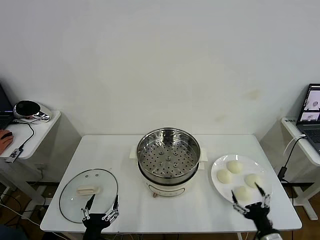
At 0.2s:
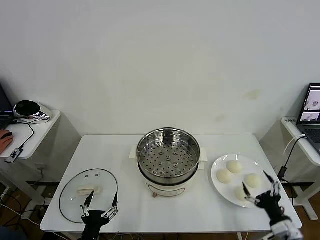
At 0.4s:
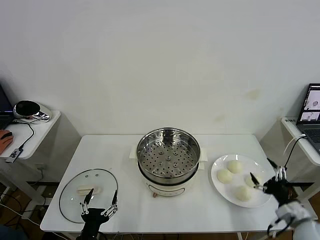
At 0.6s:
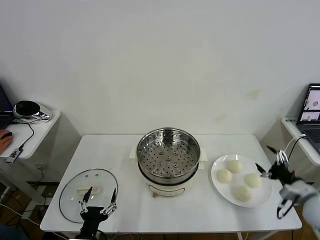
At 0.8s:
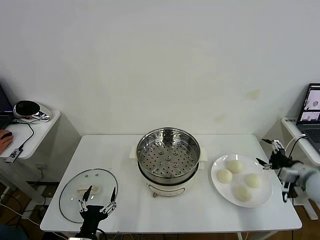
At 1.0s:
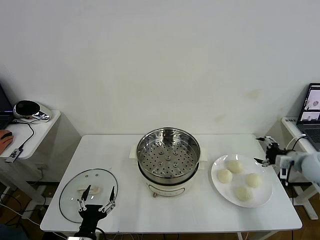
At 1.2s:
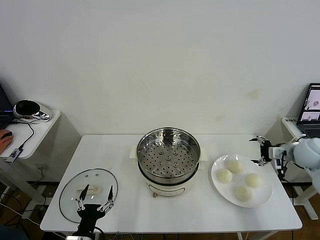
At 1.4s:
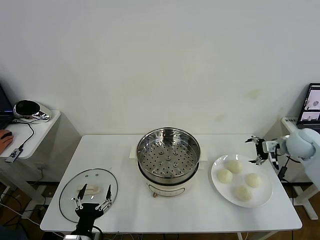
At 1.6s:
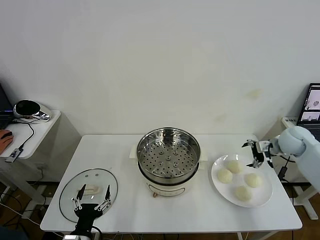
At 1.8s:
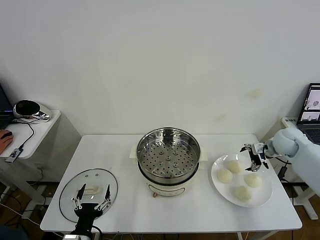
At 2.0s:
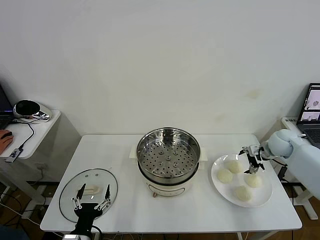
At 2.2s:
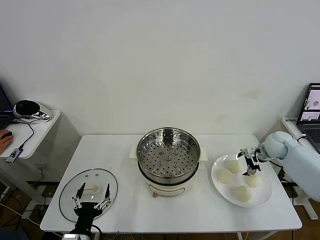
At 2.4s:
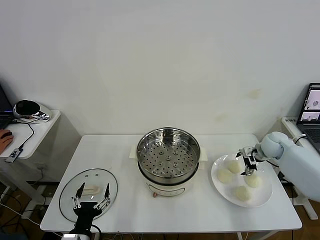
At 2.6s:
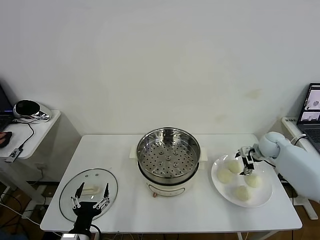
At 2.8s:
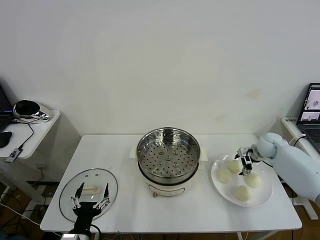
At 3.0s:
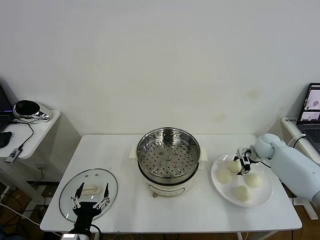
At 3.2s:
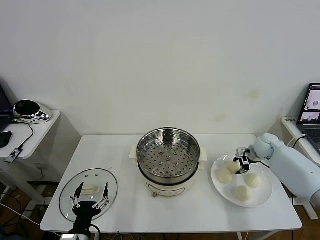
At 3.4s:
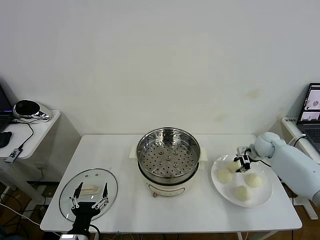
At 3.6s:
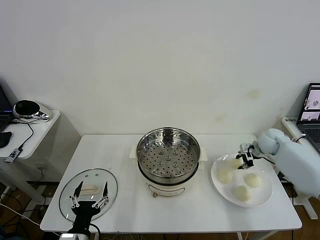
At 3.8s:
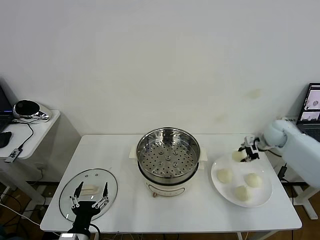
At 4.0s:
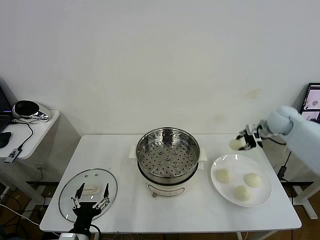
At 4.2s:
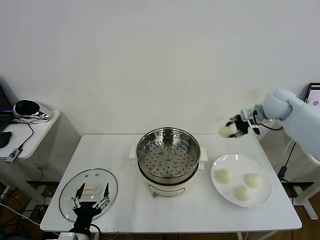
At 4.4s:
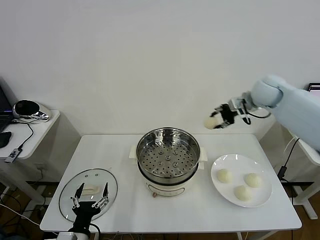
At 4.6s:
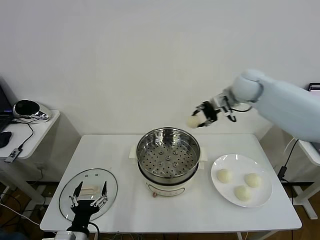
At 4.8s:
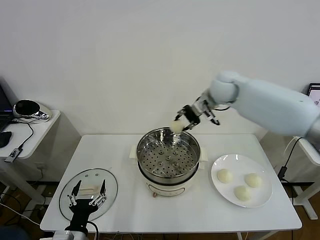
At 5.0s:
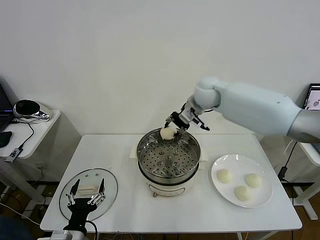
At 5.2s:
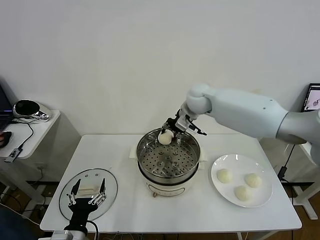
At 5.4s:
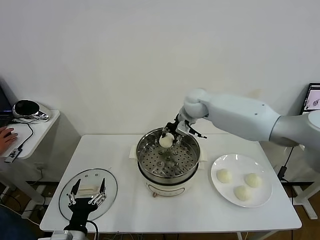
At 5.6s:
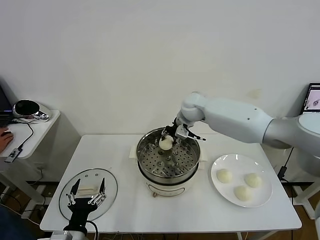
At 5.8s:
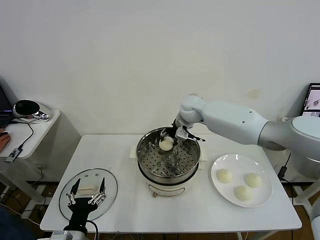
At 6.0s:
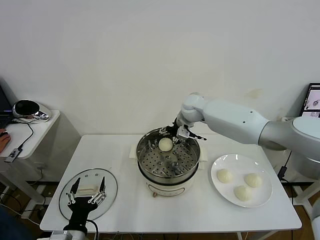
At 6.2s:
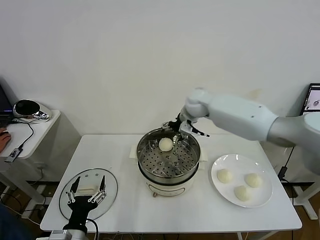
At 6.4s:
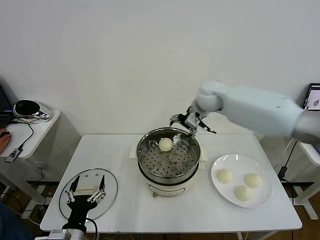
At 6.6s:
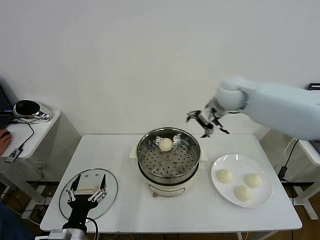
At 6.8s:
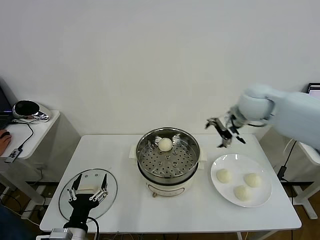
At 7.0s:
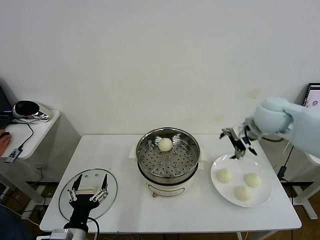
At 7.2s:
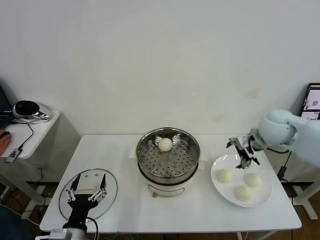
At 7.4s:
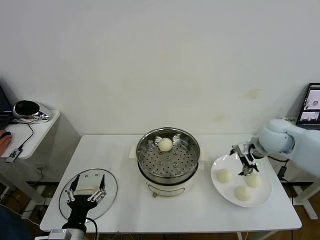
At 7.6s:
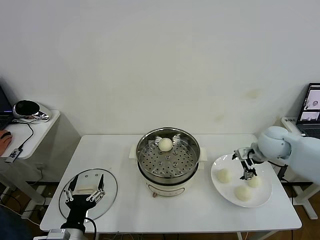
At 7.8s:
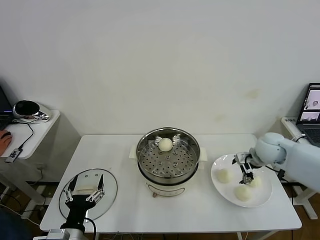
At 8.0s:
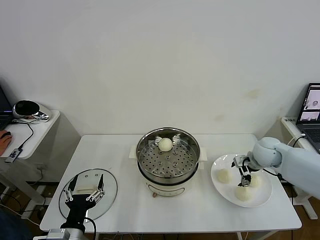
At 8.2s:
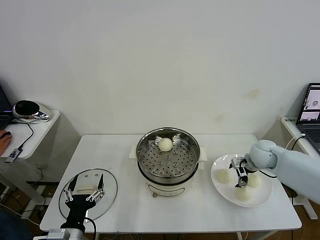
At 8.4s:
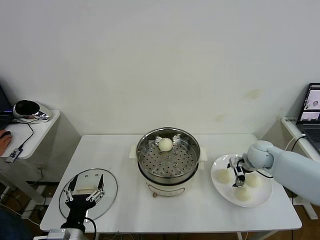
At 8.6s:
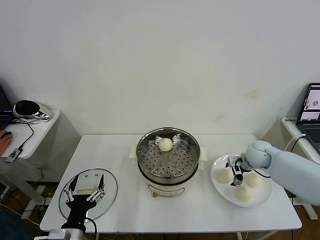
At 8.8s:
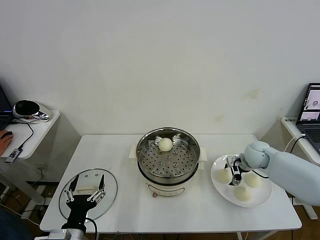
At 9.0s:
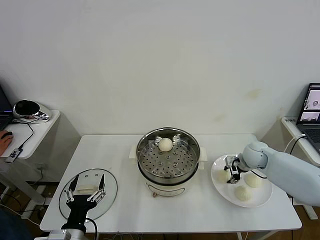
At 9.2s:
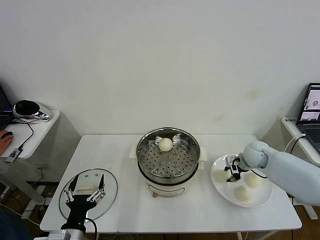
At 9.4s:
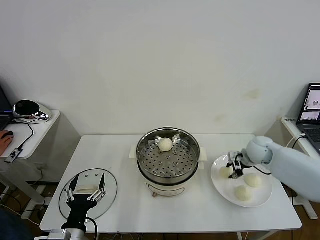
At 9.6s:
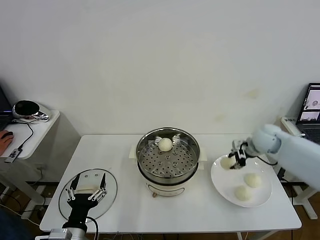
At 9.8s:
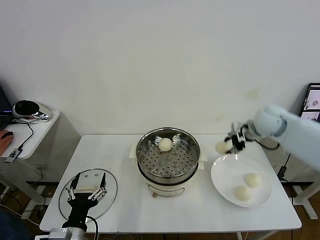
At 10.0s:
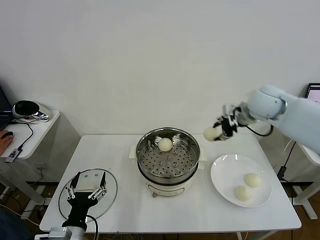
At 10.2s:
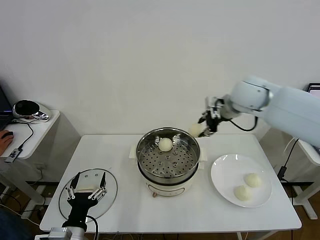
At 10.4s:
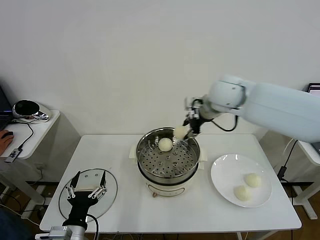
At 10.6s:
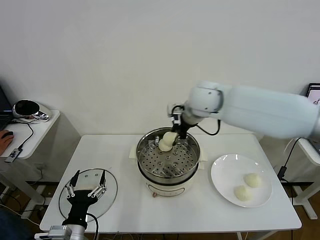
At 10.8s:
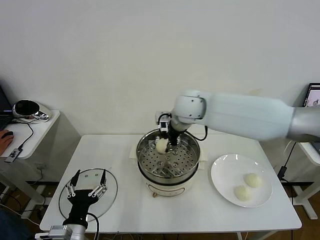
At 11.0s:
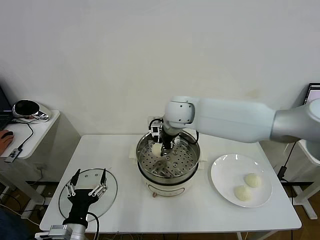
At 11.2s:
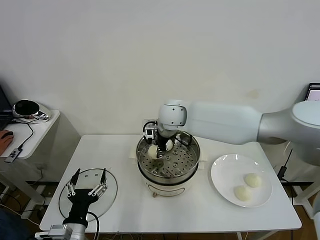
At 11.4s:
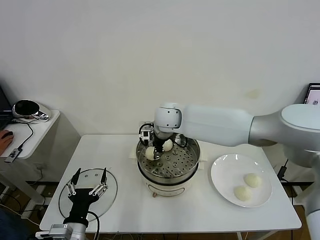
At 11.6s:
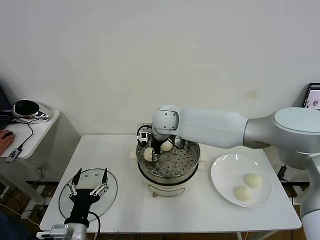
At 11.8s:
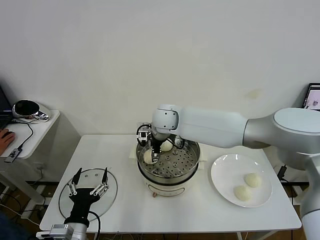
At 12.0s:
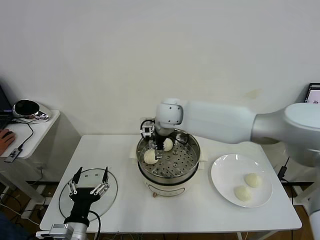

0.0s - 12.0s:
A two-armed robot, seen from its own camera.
Task of the whole recording: take steamed baozi put them in steamer then cover it.
Step, 0.0s - 3.2s: Grasp the baozi in the plate with right gripper.
Step, 3.4s - 5.8s: Place the baozi on the steamer with right gripper.
Step, 6.0s - 9.2s: Grasp the baozi in the plate with right gripper.
Step, 9.4s - 11.8s: Place the baozi on the steamer with right gripper.
1.6s - 3.0s: The right gripper moves downward, about 10 cm, and closes.
3.0s - 4.4s: The right gripper heads upward and to the left, covering about 30 cm, and closes up.
4.4s - 6.0s: The right gripper travels to the left and downward by approximately 20 cm, and opens.
6.0s - 7.6s: The right gripper goes about 30 cm to the right and backward.
7.6s - 9.0s: The right gripper travels downward by some 10 cm, and closes.
9.0s - 10.4s: The right gripper shifts about 30 cm upward and to the left.
10.4s - 12.0s: The right gripper heads to the left and downward, covering approximately 15 cm, and opens.

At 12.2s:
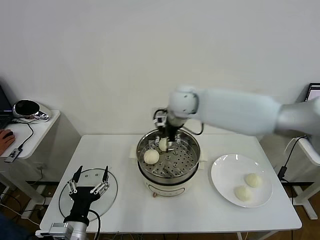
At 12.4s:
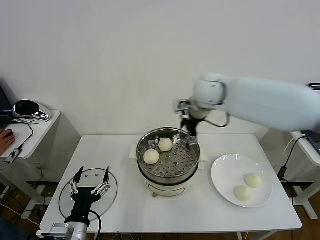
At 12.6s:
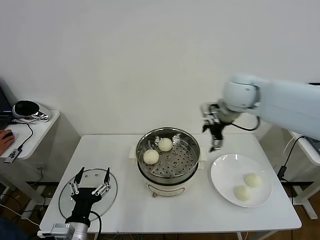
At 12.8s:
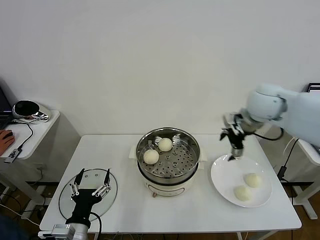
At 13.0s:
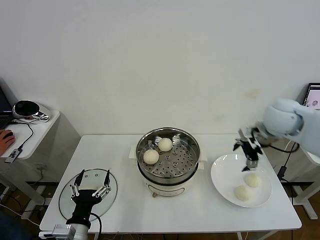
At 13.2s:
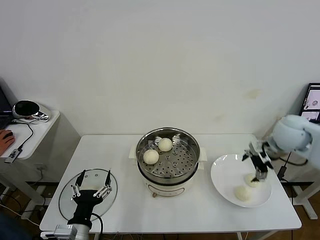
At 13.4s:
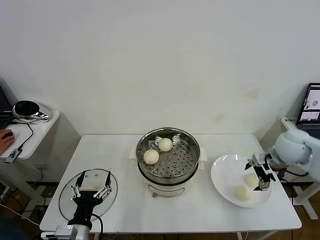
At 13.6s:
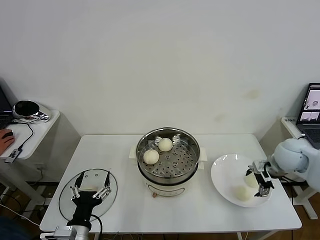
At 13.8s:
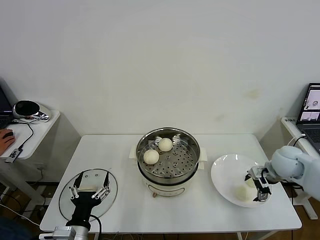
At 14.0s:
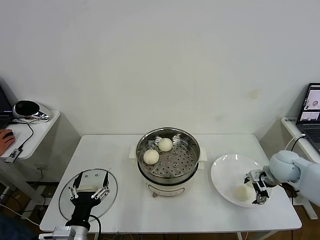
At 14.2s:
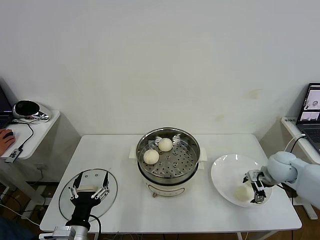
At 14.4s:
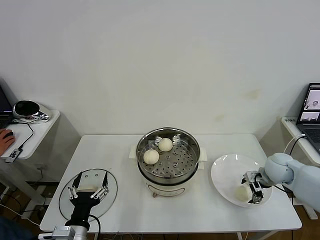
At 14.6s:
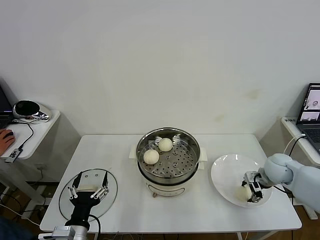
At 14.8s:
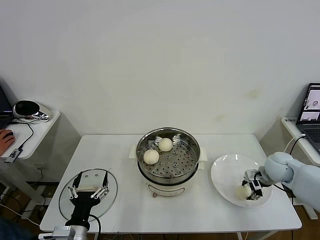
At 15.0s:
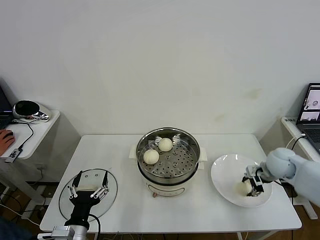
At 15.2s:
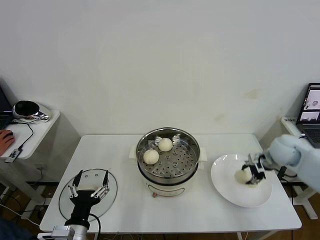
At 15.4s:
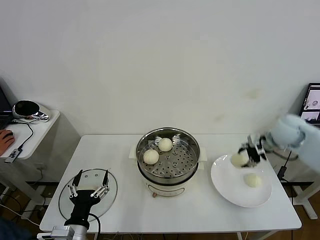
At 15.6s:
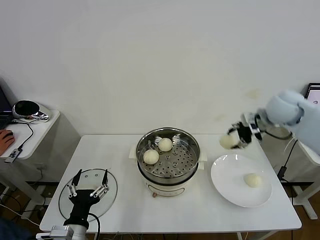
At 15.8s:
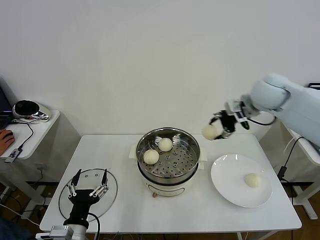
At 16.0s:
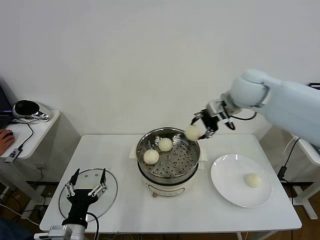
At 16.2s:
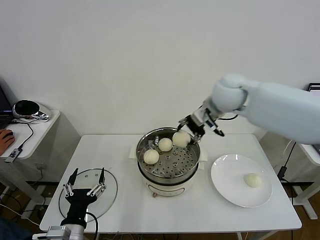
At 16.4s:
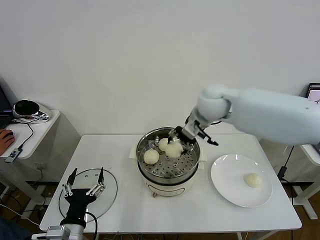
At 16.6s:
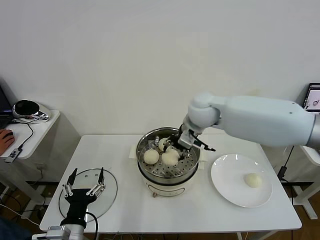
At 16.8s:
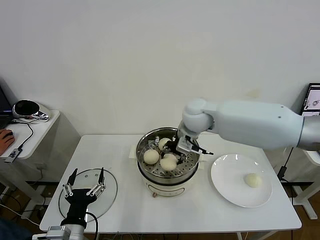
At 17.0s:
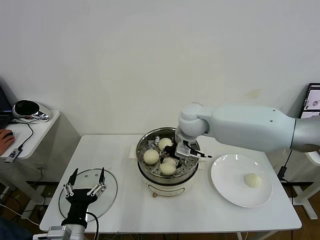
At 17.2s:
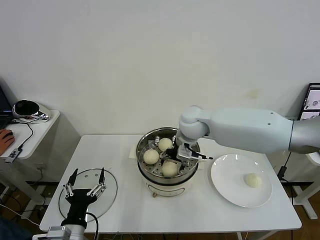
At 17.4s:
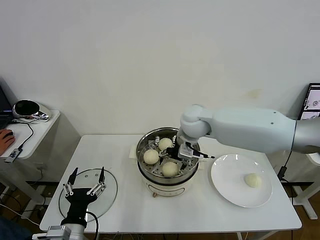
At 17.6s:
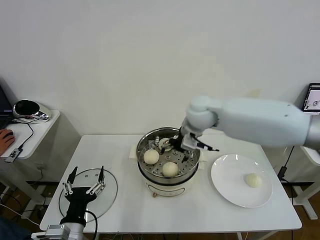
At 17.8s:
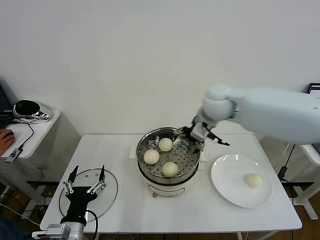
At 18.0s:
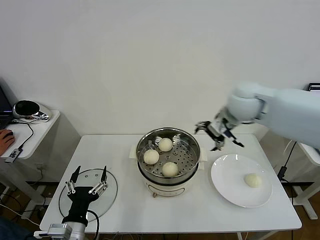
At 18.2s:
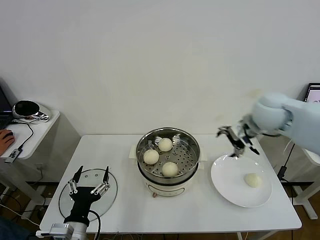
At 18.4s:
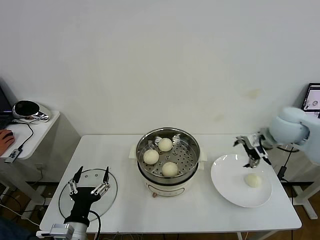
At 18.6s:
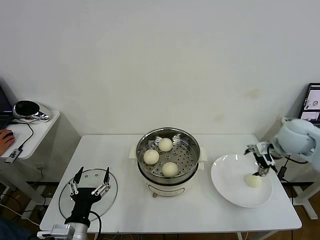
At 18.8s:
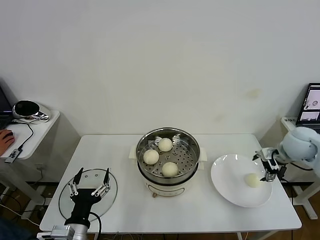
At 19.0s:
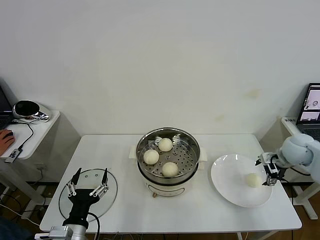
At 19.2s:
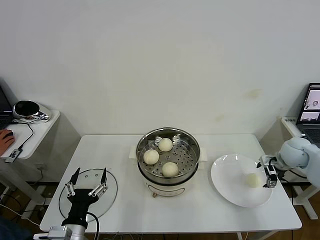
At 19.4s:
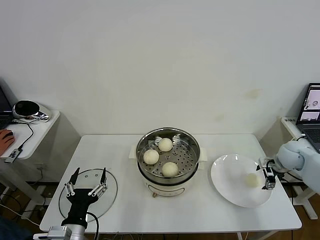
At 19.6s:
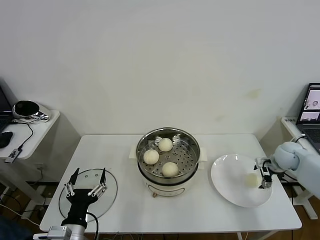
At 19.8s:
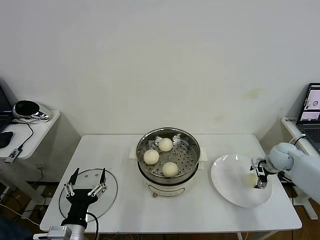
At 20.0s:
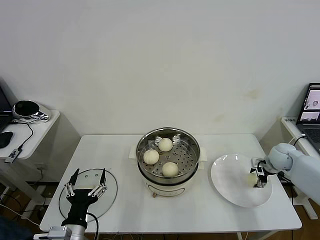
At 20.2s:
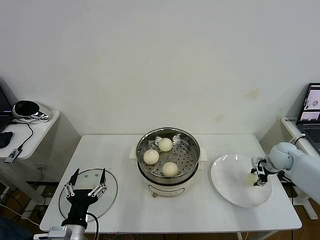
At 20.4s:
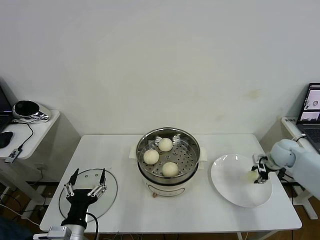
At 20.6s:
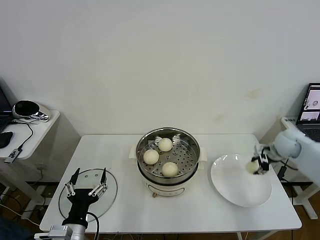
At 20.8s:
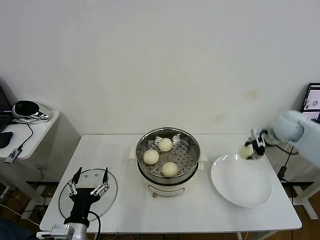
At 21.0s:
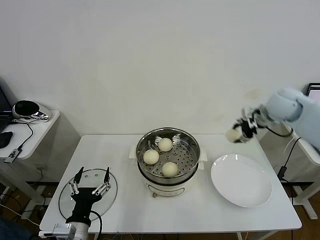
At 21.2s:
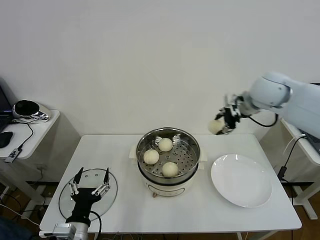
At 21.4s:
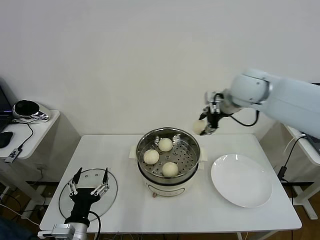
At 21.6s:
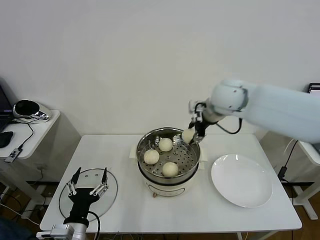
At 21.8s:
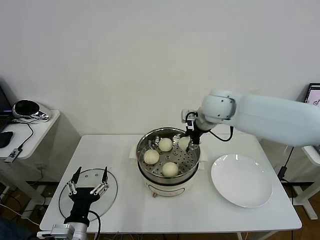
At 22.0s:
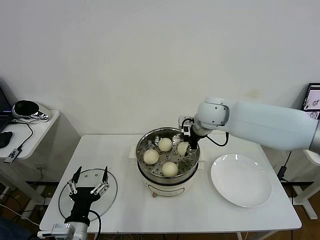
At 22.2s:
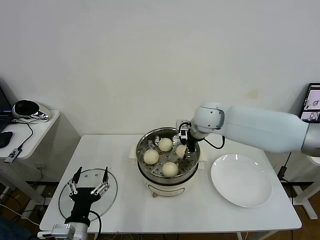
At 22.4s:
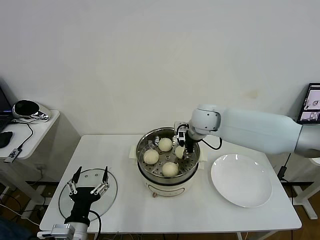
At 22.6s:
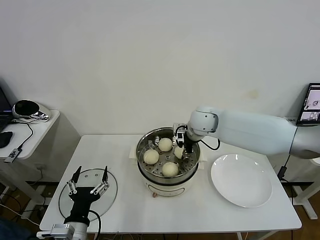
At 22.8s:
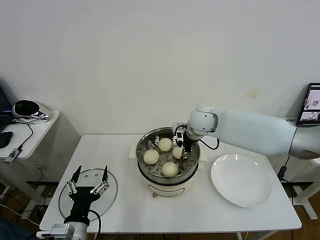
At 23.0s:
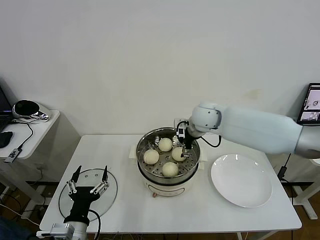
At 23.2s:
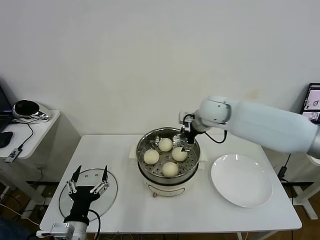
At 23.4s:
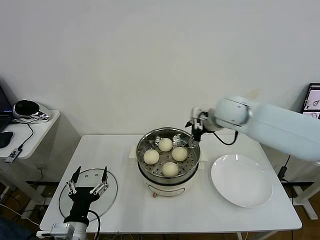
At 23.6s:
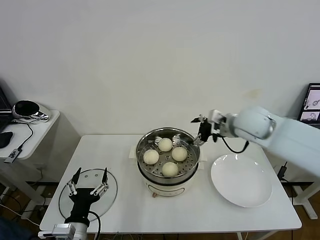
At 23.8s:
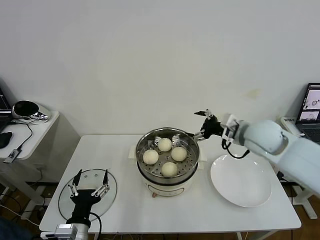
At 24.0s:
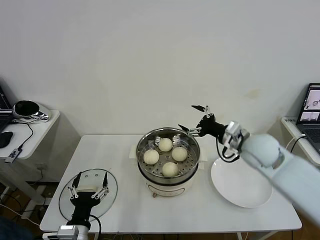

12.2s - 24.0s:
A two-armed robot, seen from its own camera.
Task of the whole recording: take steamed baozi put them in steamer then cover it.
Step, 12.2s - 14.6s: Grasp the baozi in the plate with right gripper.
Step, 14.8s - 17.2s: Place the baozi on the steamer with right gripper.
Step, 17.6s - 20.2s: Grasp the baozi in the plate with right gripper.
Step, 20.4s - 23.0s: Place the baozi on the steamer with right gripper.
12.2s - 13.6s: The right gripper is displaced to the right and downward by about 35 cm.
13.6s - 15.2s: The right gripper reaches approximately 5 cm downward, then returns, and closes.
15.2s - 16.6s: The right gripper shifts some 30 cm to the left.
16.6s - 18.2s: The right gripper shifts approximately 20 cm to the right, and opens its fingers.
18.2s - 19.6s: The right gripper travels downward and to the right by about 25 cm.
19.6s - 21.0s: The right gripper travels upward and to the left by some 25 cm, and closes.
21.0s - 22.6s: The right gripper heads to the left, covering about 20 cm.
22.6s - 24.0s: The right gripper travels to the right and backward by about 20 cm, and opens its fingers.
